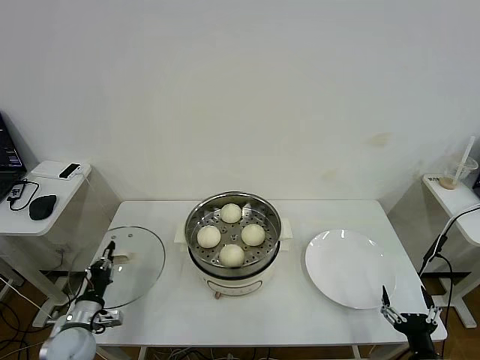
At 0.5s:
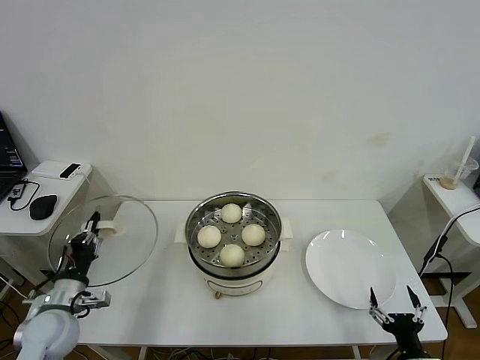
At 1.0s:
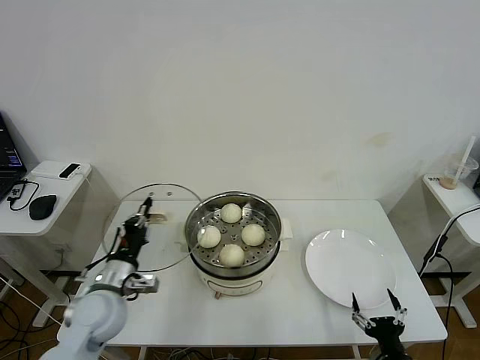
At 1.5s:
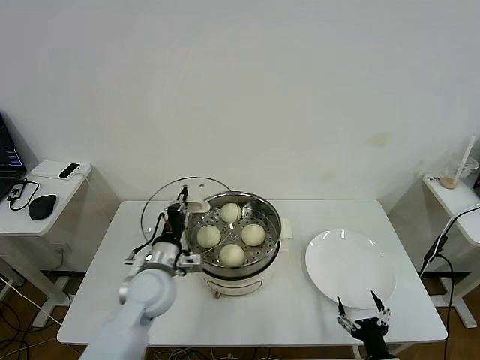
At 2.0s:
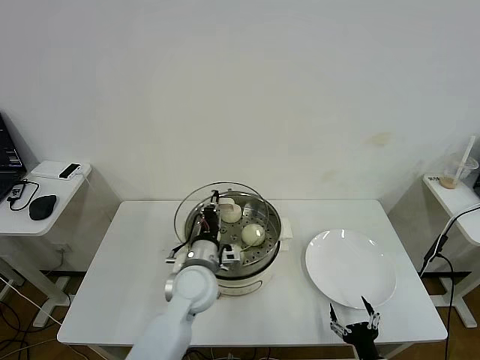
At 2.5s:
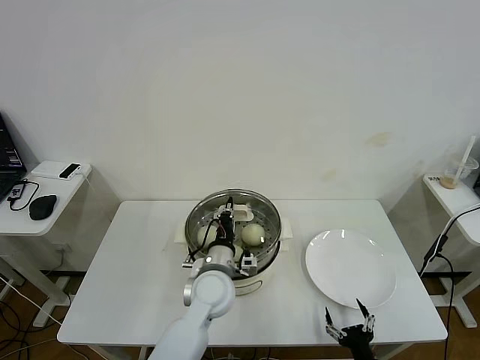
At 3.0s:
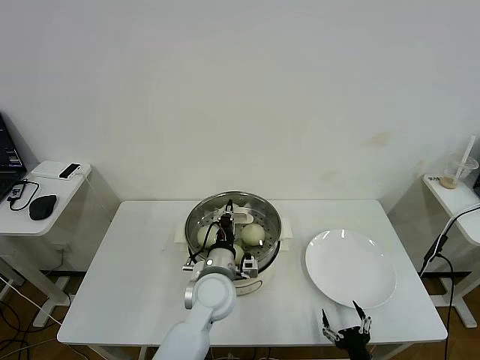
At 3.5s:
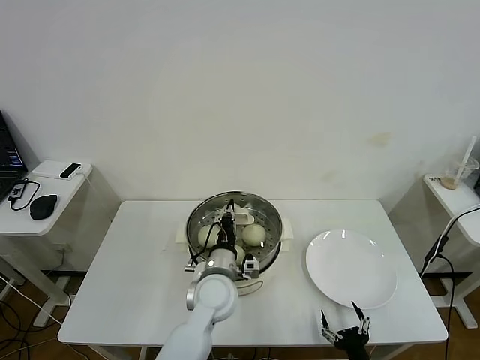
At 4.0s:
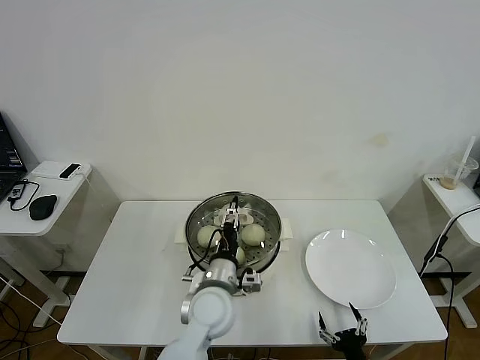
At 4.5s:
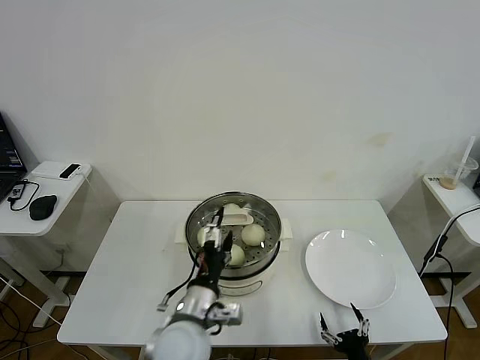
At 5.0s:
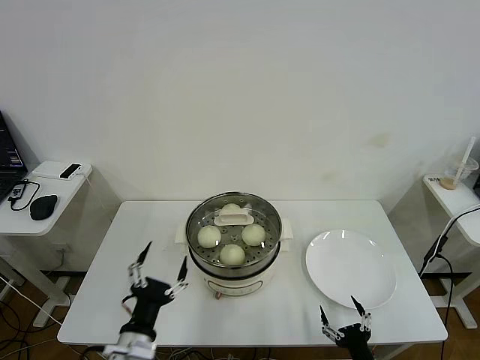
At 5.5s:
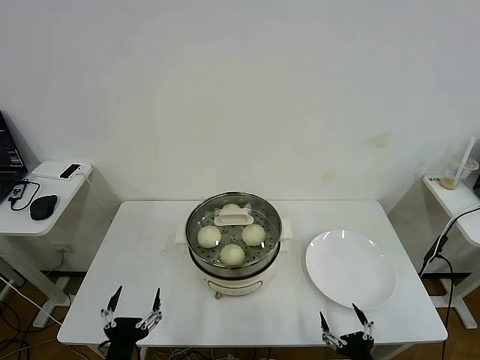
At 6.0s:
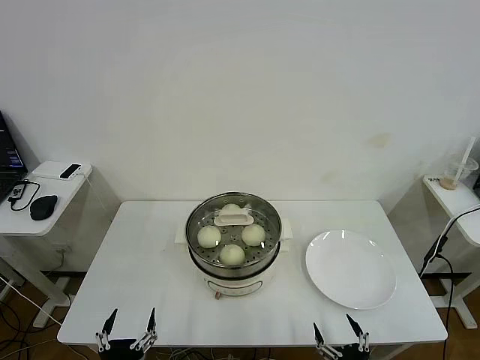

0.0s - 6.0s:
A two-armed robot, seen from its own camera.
Task of the whole recording: take steamed baozi put them in steamer then cover it.
Step, 0.0s - 4.0s: Place the pot lid on the steamer with left gripper.
0.0s - 2.0s: The left gripper goes approximately 30 cm to the right and upward. The right gripper shifts about 5 cm to the left.
2.0s - 4.0s: The left gripper goes approximately 5 cm to the right, and opens.
4.0s - 6.0s: The right gripper heads upward, covering approximately 5 cm. The left gripper goes about 30 cm backward and to the left.

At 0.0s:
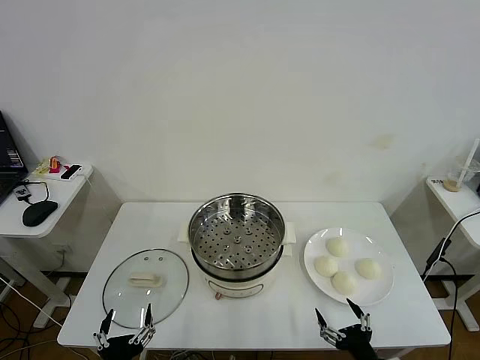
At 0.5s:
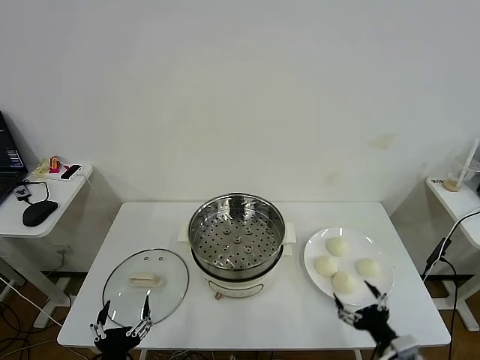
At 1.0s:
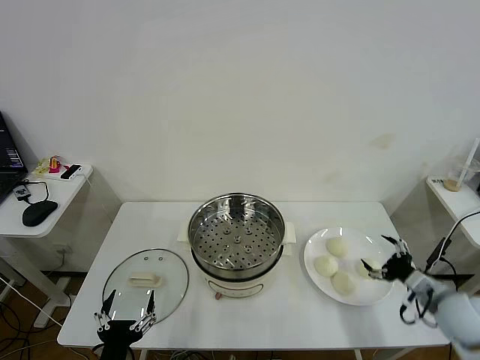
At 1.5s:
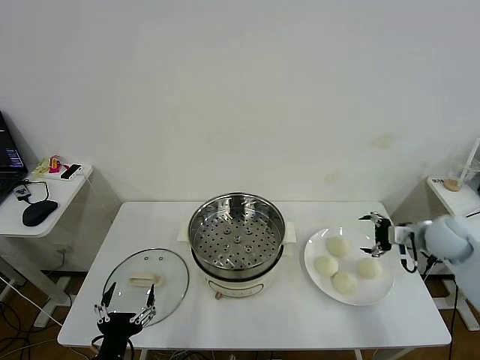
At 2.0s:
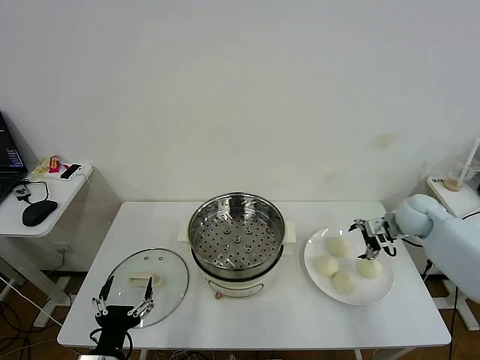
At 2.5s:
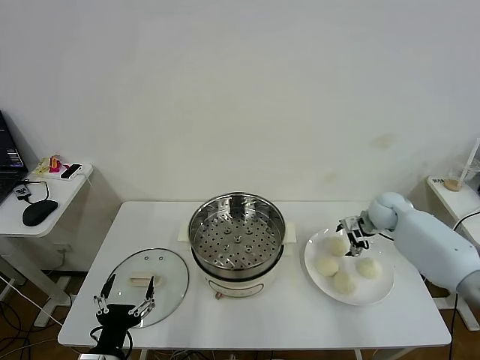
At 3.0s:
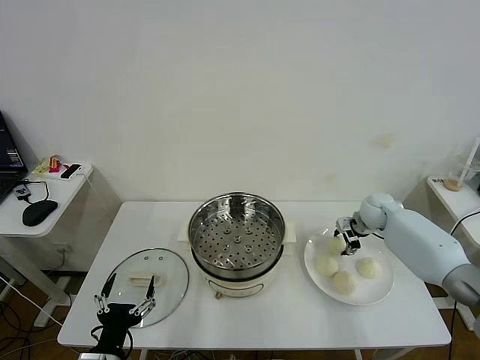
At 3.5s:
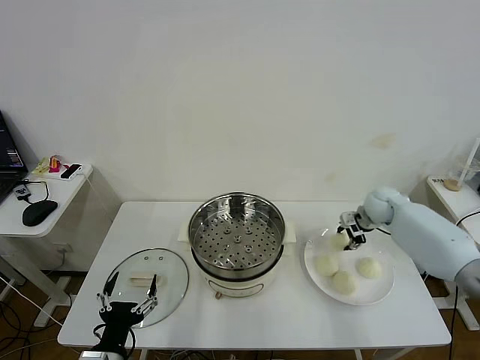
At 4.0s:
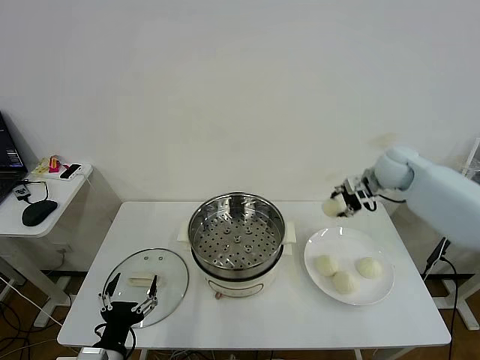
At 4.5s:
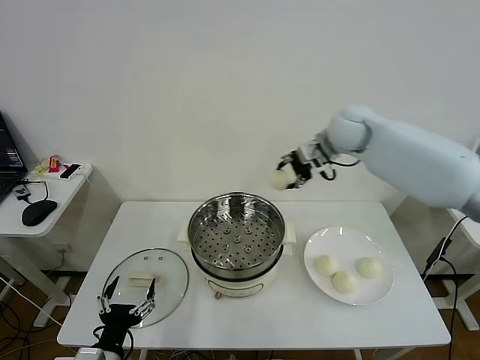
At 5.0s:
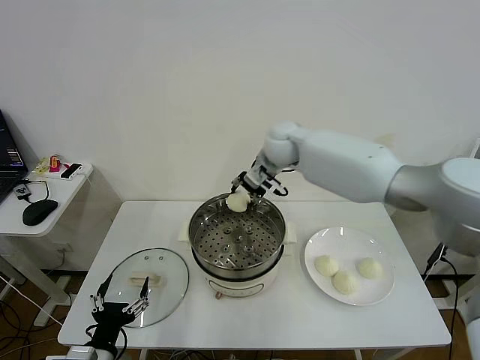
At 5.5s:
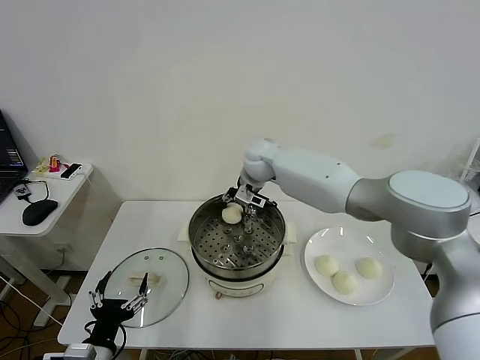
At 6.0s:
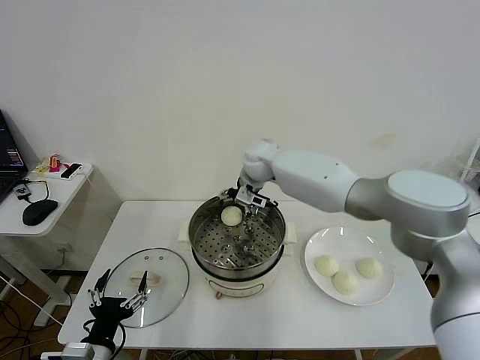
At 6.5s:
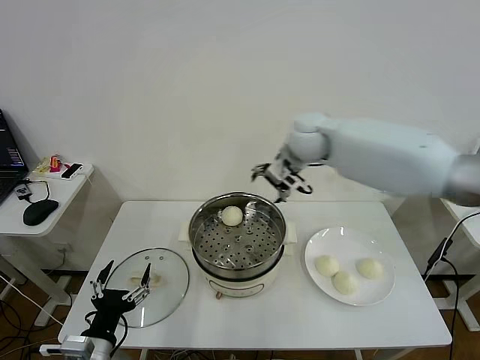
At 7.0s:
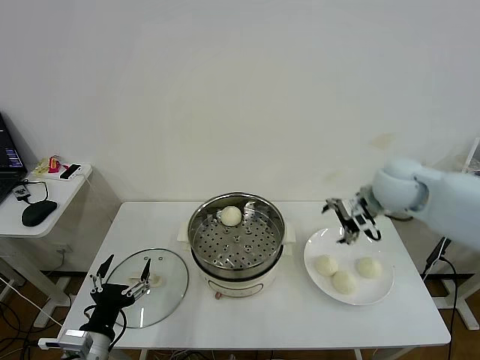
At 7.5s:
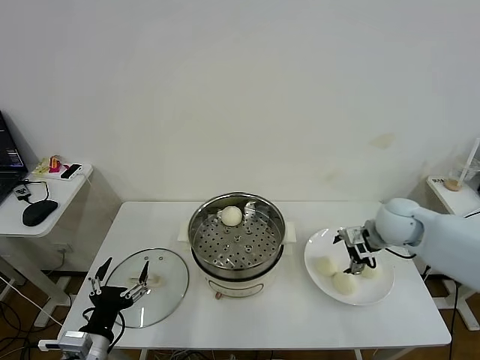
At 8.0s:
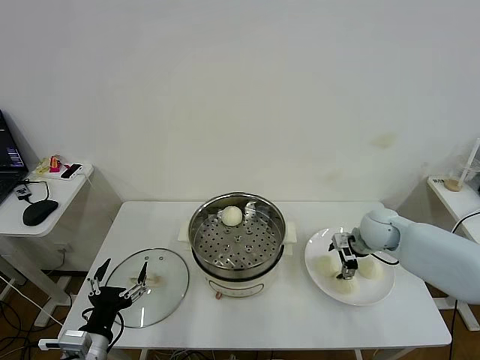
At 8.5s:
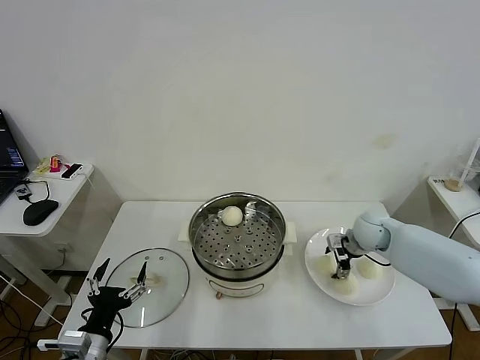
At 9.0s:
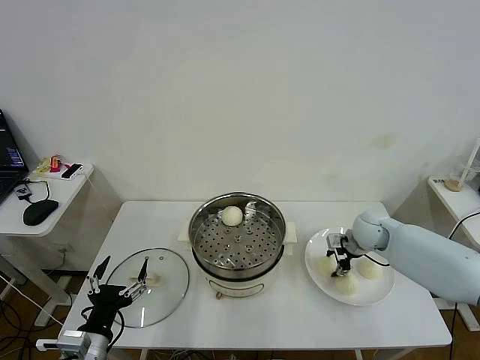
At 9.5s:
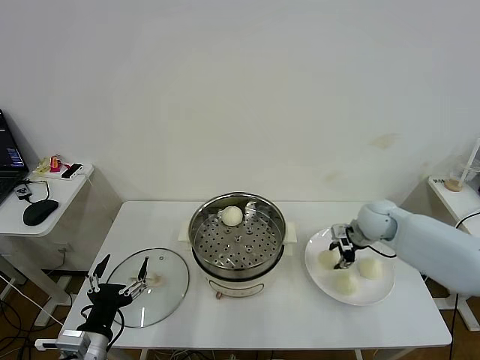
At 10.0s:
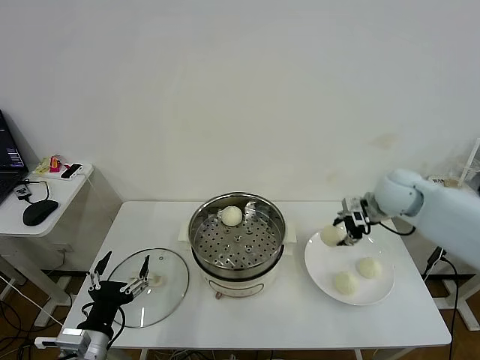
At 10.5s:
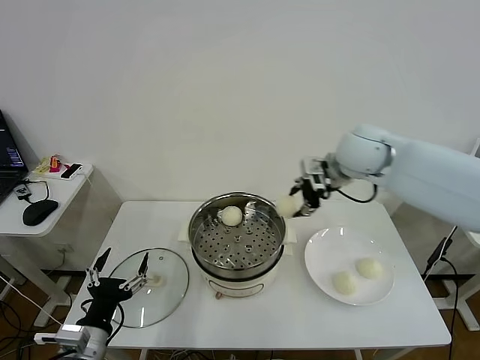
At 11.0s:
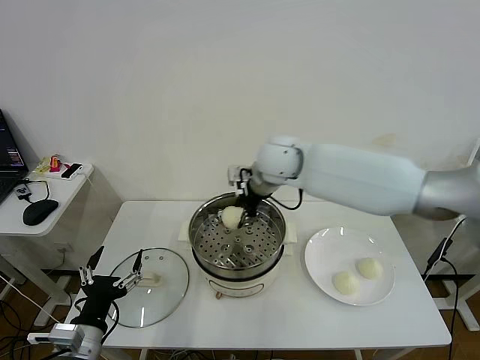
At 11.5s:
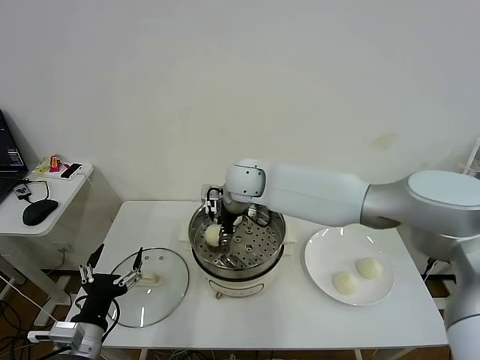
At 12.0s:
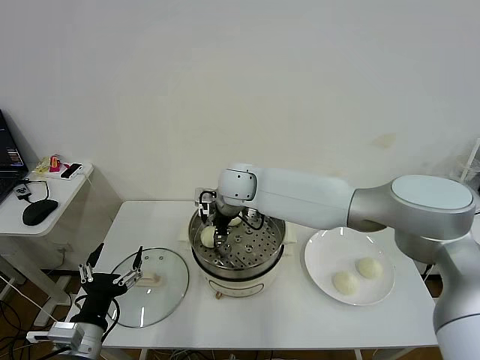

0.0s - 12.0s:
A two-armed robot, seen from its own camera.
Task of the whole recording: take steamed baozi put them in steamer then cover it.
Step, 0.0s - 3.0s: Grasp the baozi in the plate with right gripper.
Step, 3.5s - 6.0s: Place the baozi on the steamer with right gripper.
Step, 6.5s - 9.0s: Grasp the baozi in the plate with right gripper.
2.0s - 4.0s: The right gripper shifts approximately 15 cm upward and to the left, and closes.
4.0s - 6.0s: The right gripper goes some 25 cm to the left, and opens up.
6.0s - 8.0s: The right gripper is displaced to the right, downward and backward by some 35 cm.
8.0s - 10.0s: The right gripper shifts approximately 15 cm upward, and closes up.
10.0s - 12.0s: The right gripper is displaced to the left by approximately 35 cm, and opens up.

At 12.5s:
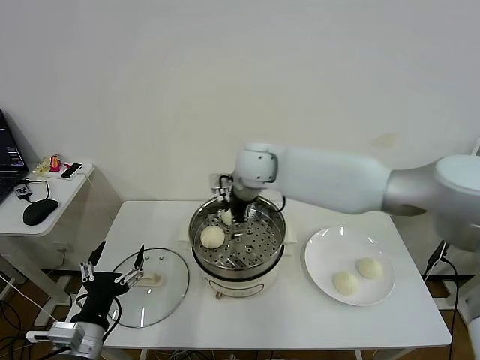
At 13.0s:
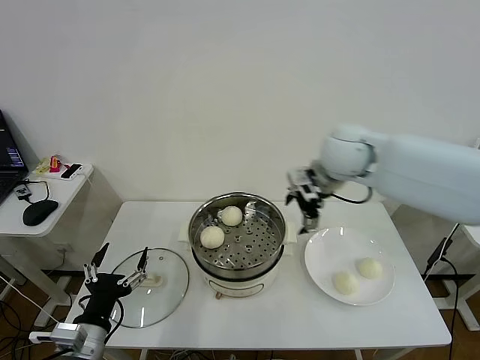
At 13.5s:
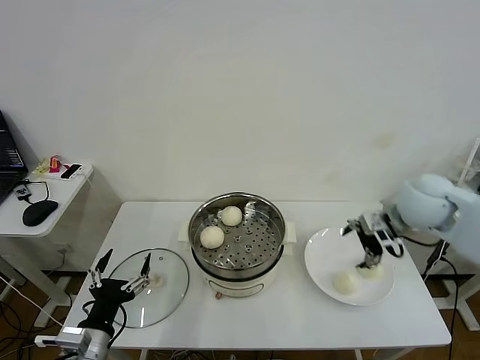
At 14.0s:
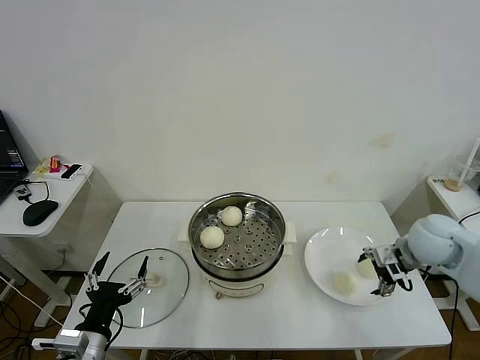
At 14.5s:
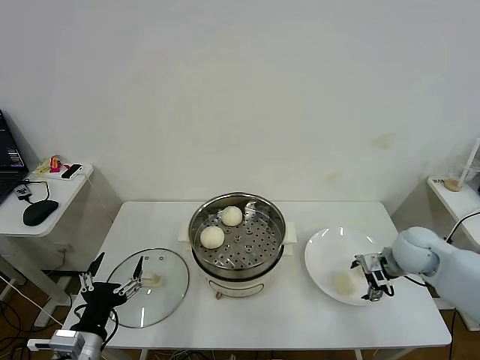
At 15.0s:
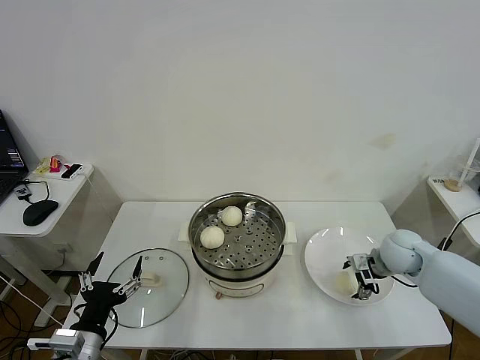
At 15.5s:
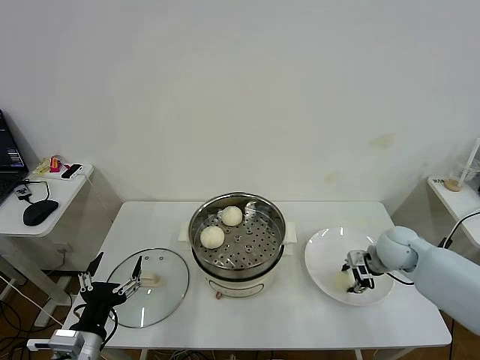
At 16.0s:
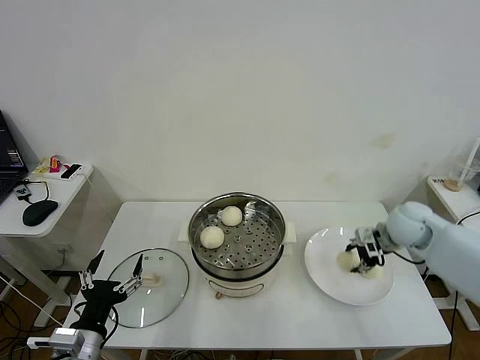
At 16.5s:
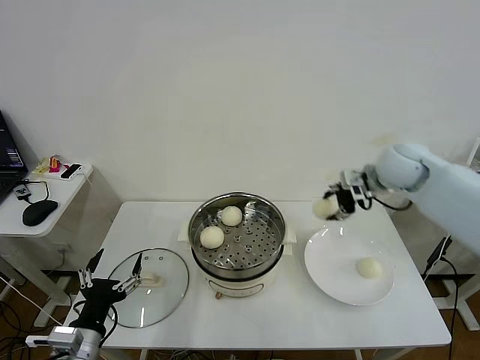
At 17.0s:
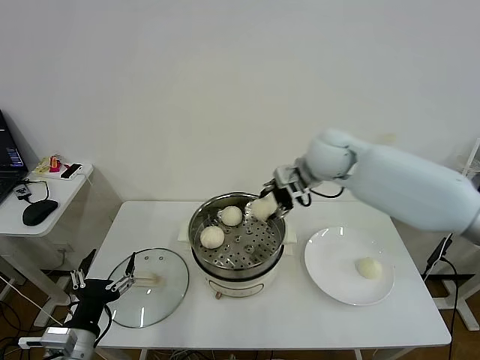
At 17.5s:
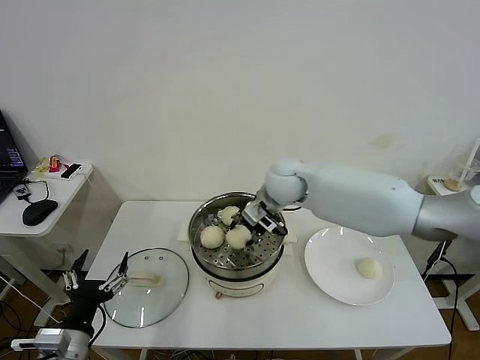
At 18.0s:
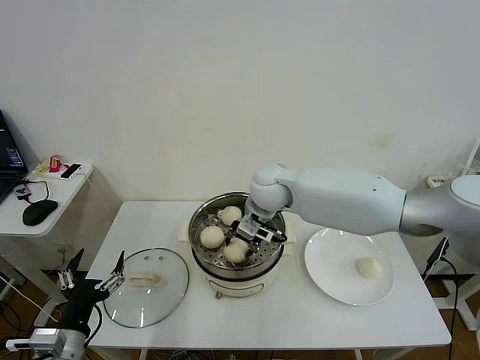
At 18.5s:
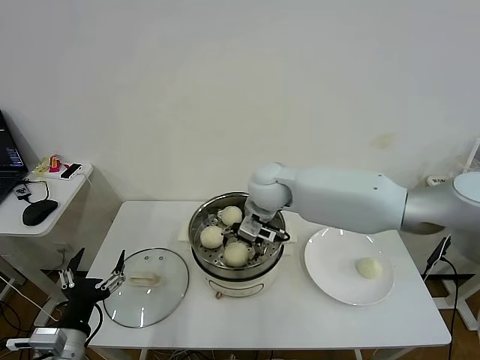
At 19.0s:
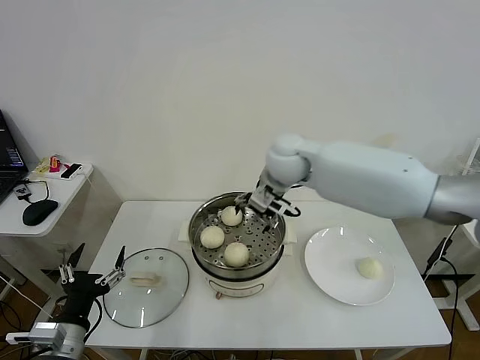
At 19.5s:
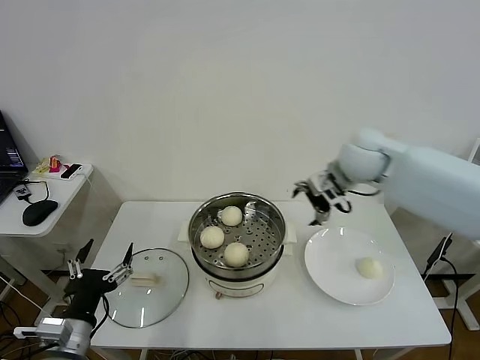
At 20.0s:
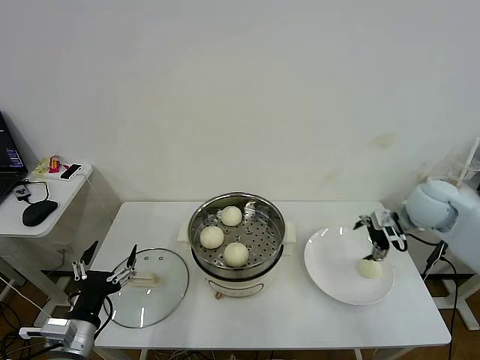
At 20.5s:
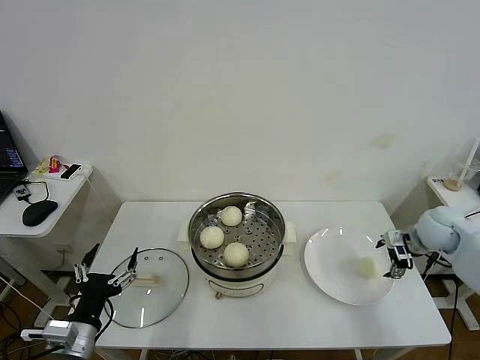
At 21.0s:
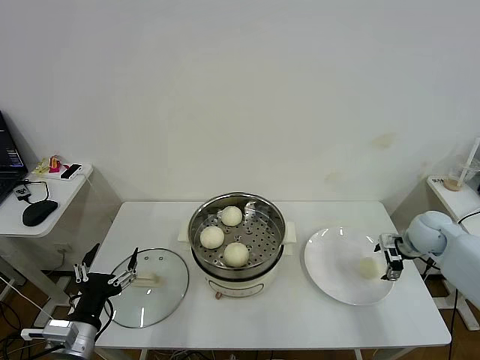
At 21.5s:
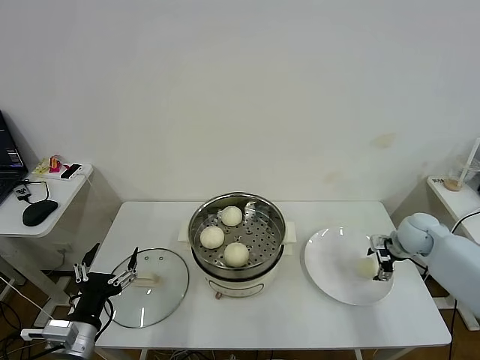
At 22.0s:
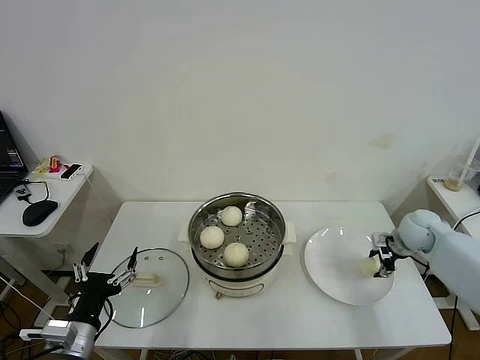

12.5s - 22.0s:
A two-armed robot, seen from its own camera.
Task of the whole recording: take steamed baozi put them in steamer then cover it.
Step, 12.5s - 15.5s: Grasp the baozi in the plate with right gripper.
Step, 16.0s - 18.5s: Place the baozi on the steamer with right gripper.
Step, 19.0s - 21.5s: Grasp the baozi in the plate with right gripper.
12.5s - 14.5s: The right gripper heads to the right and downward, covering some 35 cm.
14.5s - 16.5s: The right gripper is displaced upward, forward and to the left by roughly 20 cm, and closes.
16.5s - 18.0s: The right gripper goes roughly 25 cm to the left.
18.0s - 20.0s: The right gripper goes some 35 cm to the right, and opens up.
20.0s - 22.0s: The right gripper goes roughly 10 cm downward, and closes its fingers.
